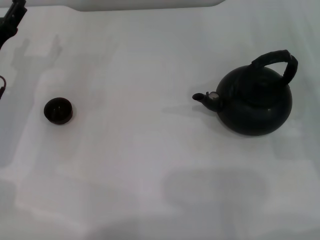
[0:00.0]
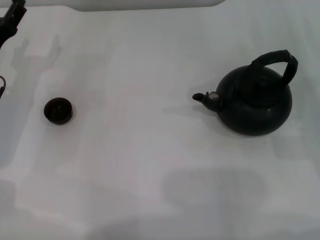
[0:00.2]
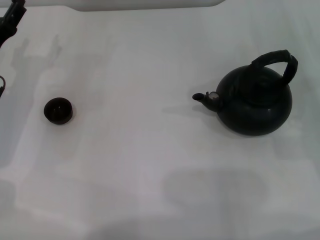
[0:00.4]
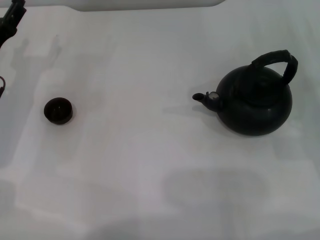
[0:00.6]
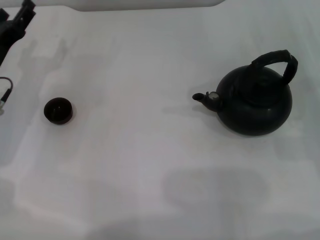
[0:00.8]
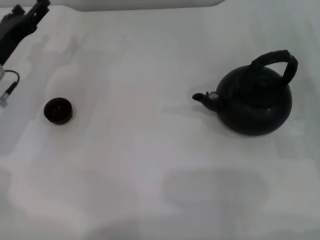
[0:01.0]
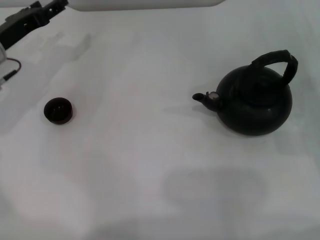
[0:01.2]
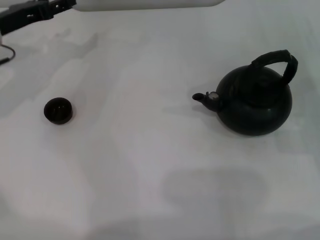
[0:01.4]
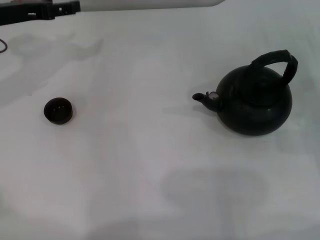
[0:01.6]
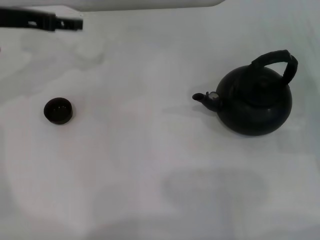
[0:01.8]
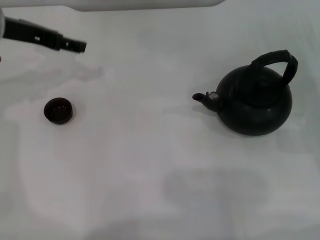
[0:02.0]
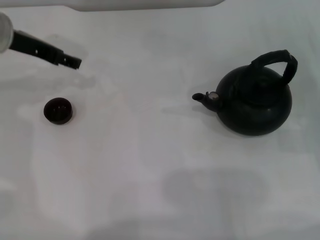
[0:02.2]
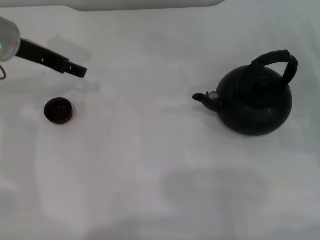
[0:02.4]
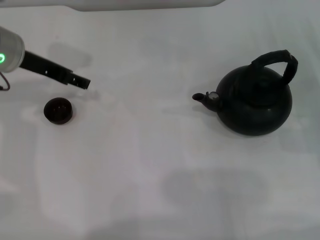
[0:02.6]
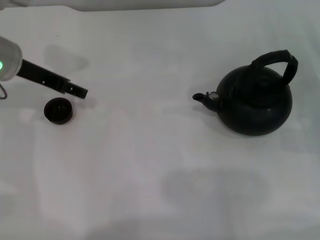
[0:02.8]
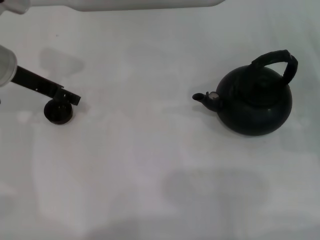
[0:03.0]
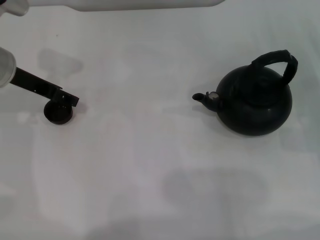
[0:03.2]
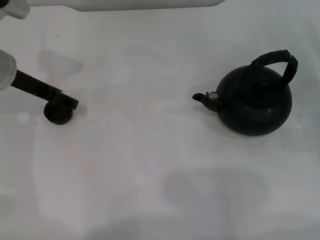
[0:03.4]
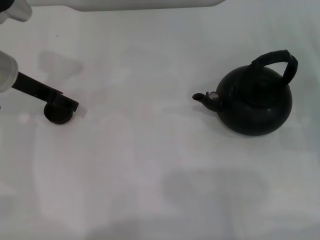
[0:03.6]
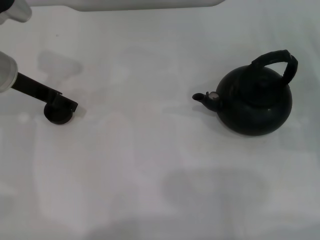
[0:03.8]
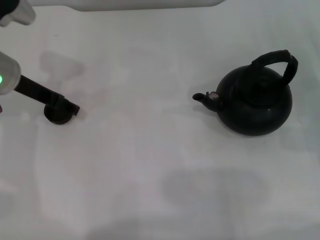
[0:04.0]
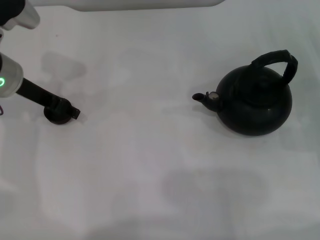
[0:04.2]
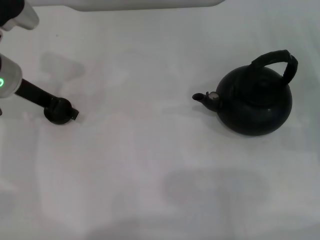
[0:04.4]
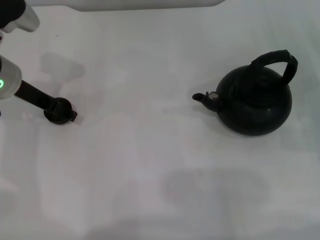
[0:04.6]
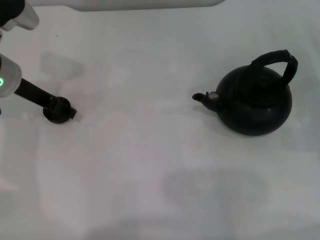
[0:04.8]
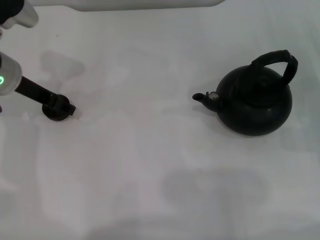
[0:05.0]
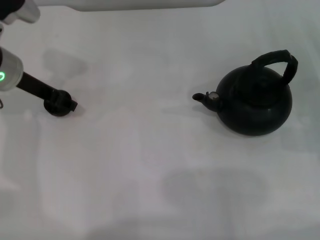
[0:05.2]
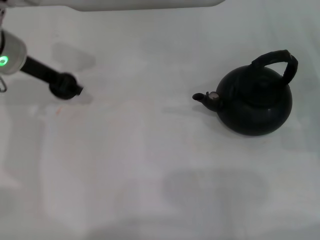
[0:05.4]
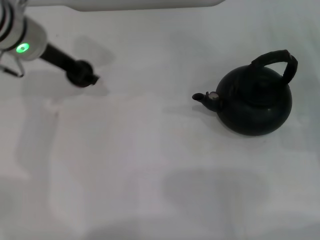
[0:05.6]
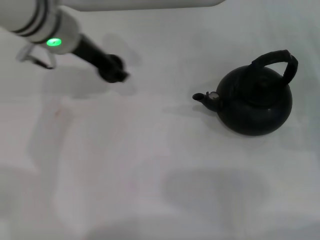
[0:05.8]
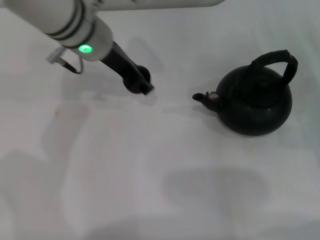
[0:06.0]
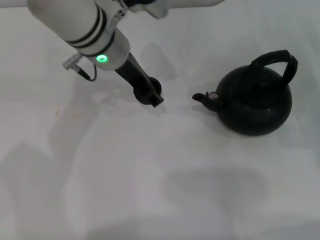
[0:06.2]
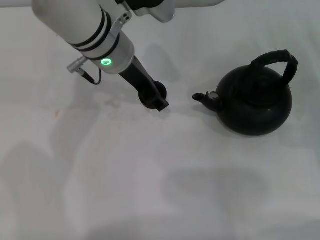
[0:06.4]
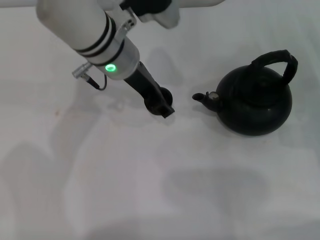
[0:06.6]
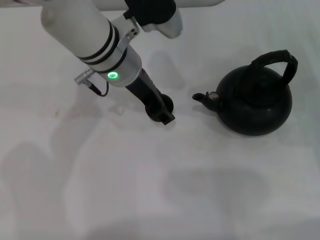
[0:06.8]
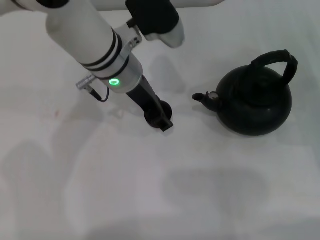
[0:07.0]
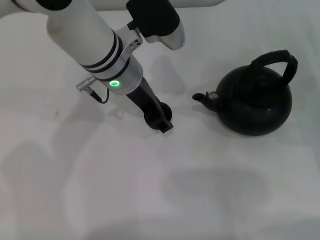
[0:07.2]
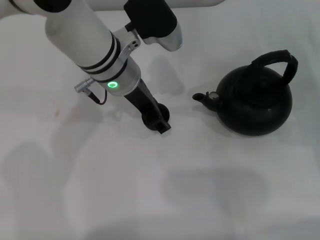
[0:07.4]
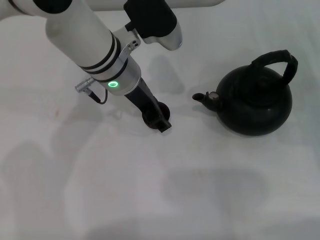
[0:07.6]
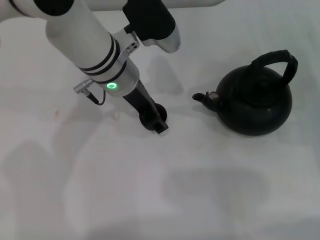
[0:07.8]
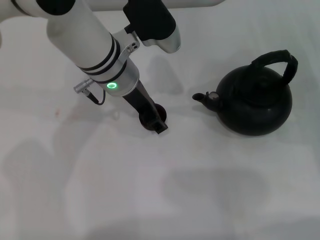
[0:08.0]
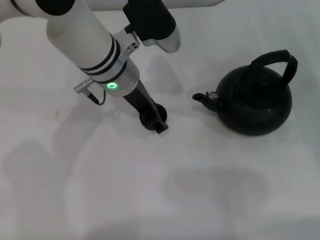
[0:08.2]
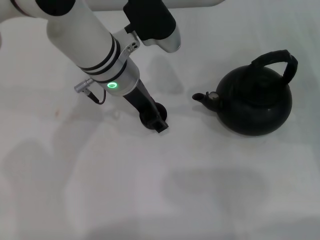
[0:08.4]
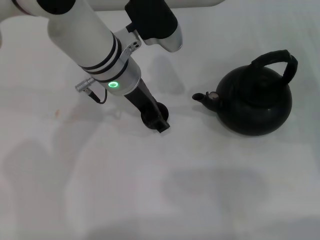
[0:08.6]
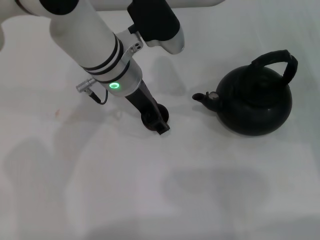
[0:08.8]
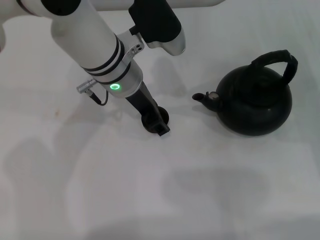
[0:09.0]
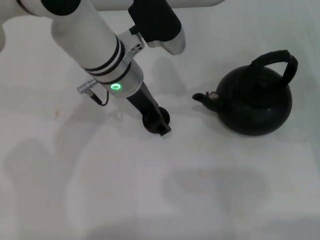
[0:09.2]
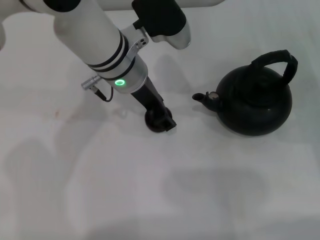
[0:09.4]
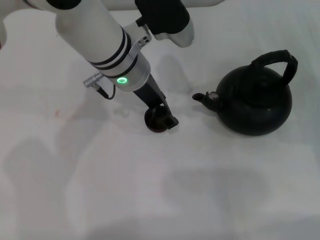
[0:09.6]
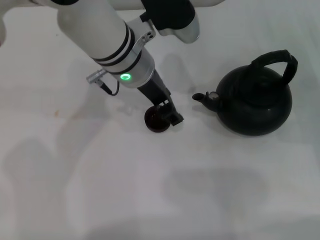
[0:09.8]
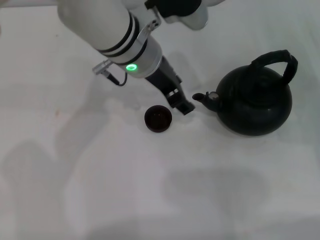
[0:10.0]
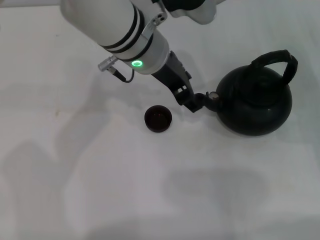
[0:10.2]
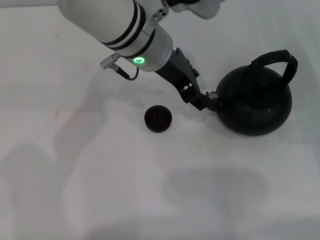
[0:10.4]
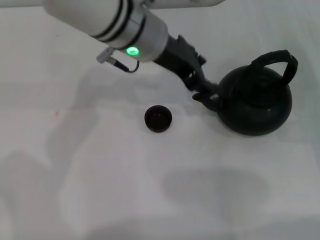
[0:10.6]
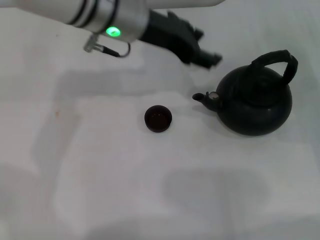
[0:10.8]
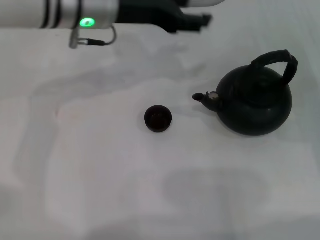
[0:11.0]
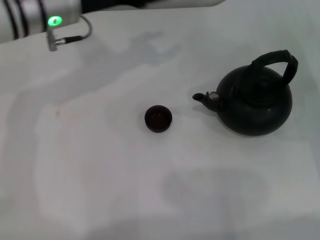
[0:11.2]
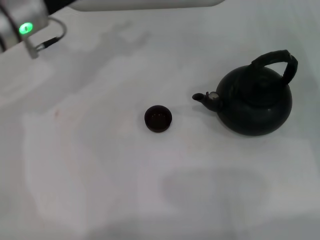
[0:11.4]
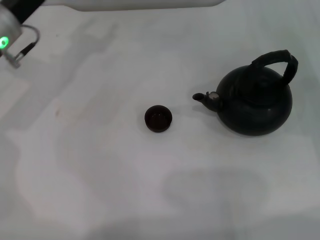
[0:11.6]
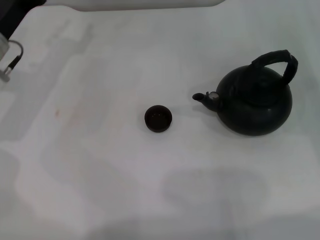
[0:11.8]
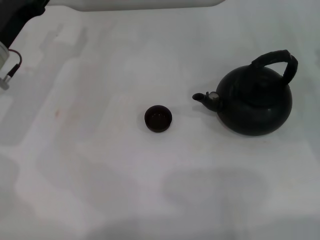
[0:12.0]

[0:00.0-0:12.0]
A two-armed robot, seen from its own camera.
Task of the whole recording: Grasp the handle of the teapot with one hand and pour tea into the teacup.
Step, 0:00.0 to 0:05.2: Pick up the teacup with the left gripper.
Step, 0:05.4 to 0:10.0: Place the teacup in the center of view with the left gripper.
0:00.0 to 0:01.6: The left gripper is displaced upward and forward by roughly 15 cm.
0:01.6 to 0:03.0: The left gripper moves roughly 5 cm.
0:03.0 to 0:04.4: The grippers move only a little.
0:04.4 to 0:06.0: The left gripper travels to the right by approximately 15 cm, and closes its fingers.
0:06.0 to 0:07.6: The left gripper moves some 5 cm.
0:07.6 to 0:09.0: Both grippers stay put.
0:09.0 to 0:10.4: The left gripper is displaced upward by some 5 cm.
0:10.4 to 0:12.0: The left gripper moves to the left and downward, roughly 25 cm.

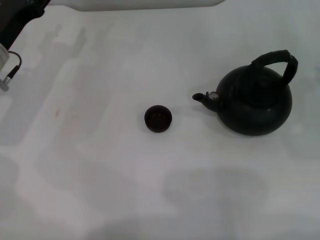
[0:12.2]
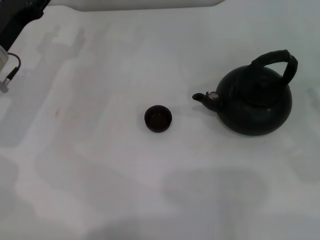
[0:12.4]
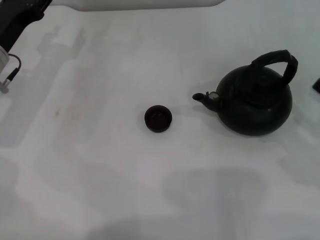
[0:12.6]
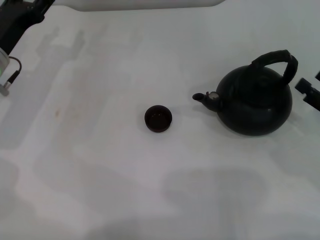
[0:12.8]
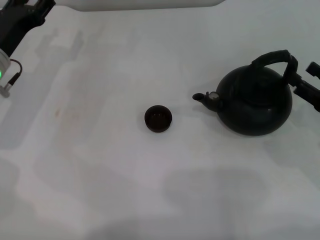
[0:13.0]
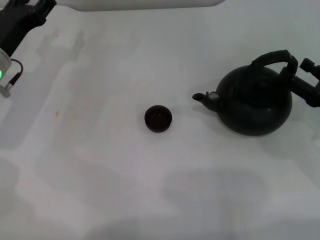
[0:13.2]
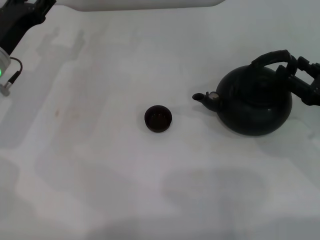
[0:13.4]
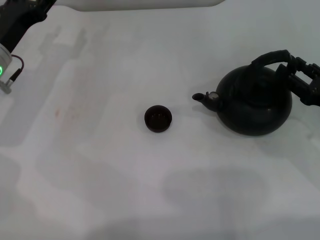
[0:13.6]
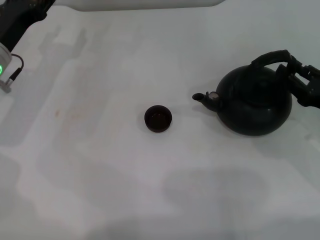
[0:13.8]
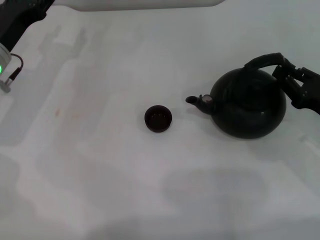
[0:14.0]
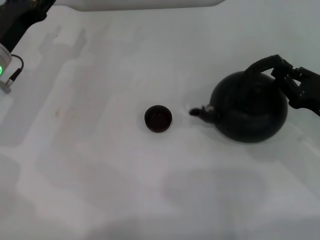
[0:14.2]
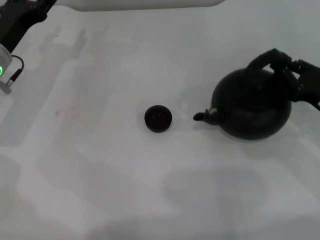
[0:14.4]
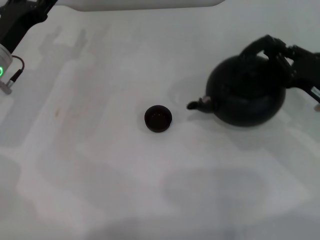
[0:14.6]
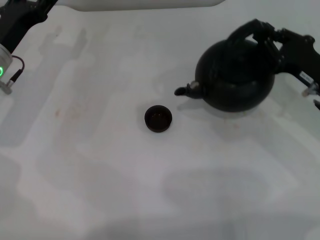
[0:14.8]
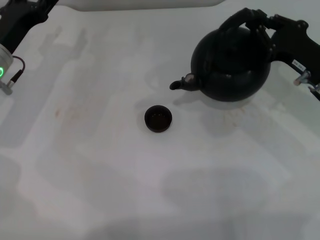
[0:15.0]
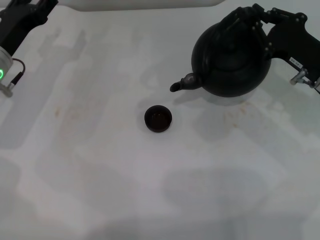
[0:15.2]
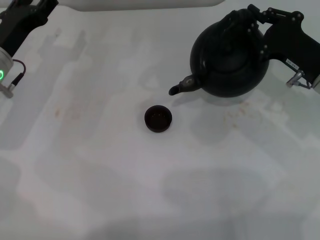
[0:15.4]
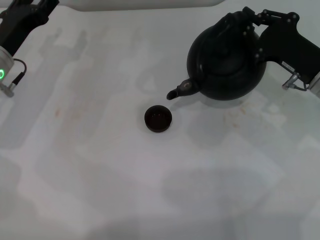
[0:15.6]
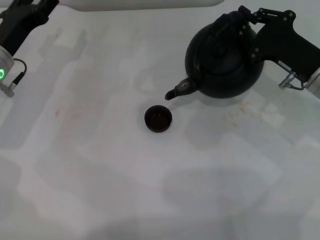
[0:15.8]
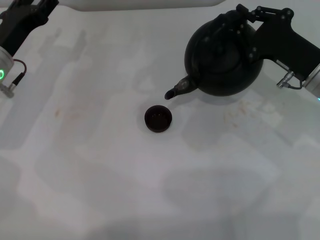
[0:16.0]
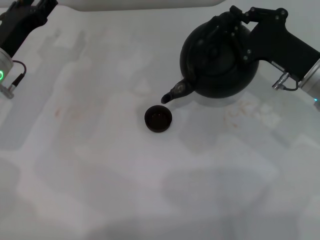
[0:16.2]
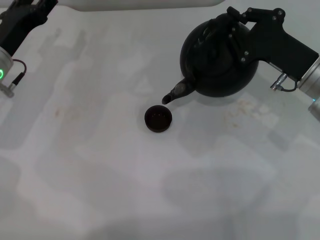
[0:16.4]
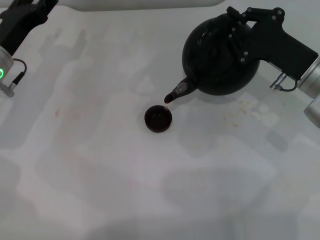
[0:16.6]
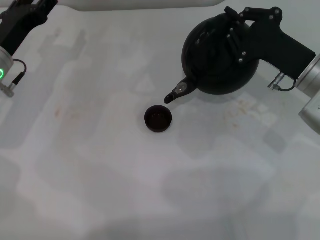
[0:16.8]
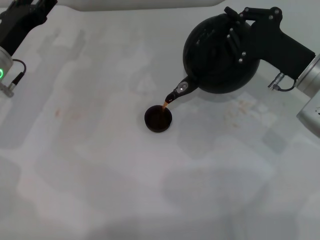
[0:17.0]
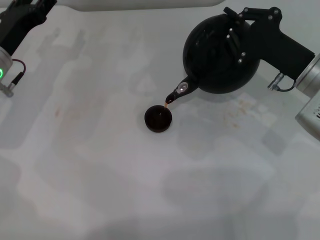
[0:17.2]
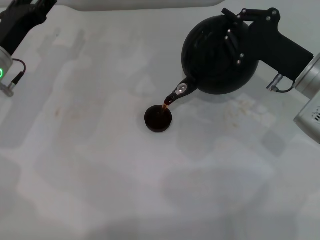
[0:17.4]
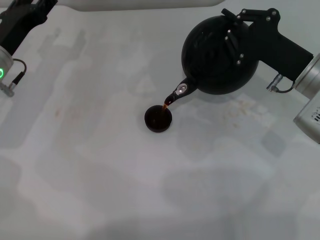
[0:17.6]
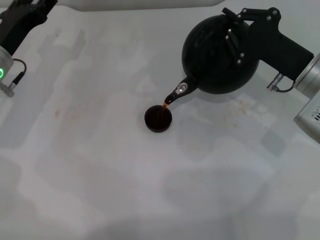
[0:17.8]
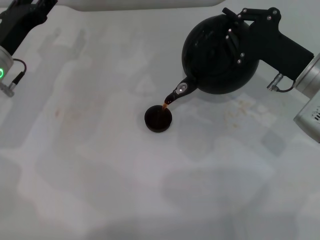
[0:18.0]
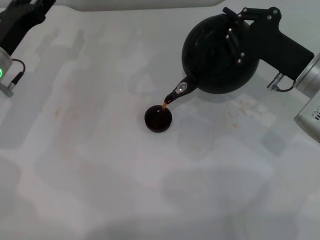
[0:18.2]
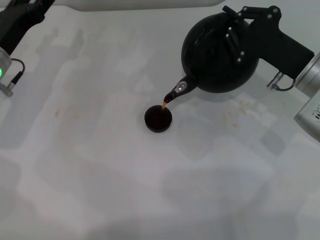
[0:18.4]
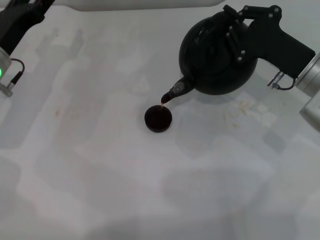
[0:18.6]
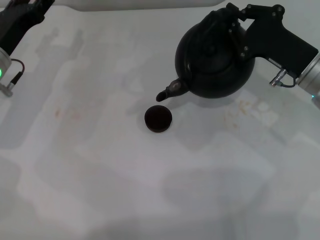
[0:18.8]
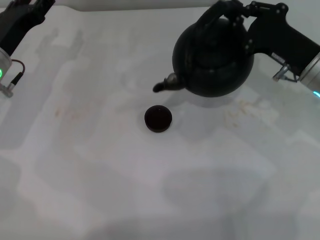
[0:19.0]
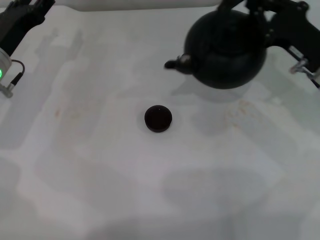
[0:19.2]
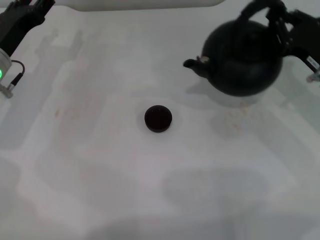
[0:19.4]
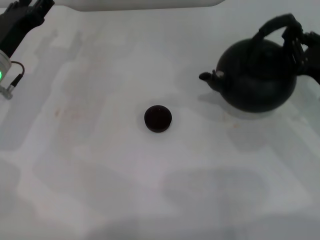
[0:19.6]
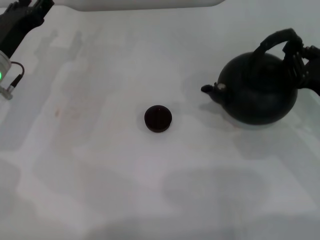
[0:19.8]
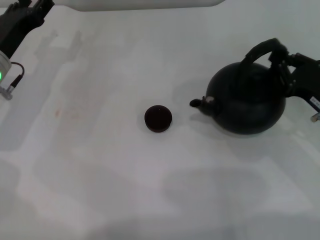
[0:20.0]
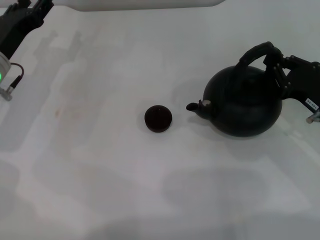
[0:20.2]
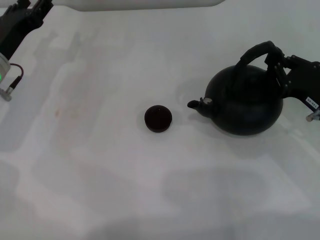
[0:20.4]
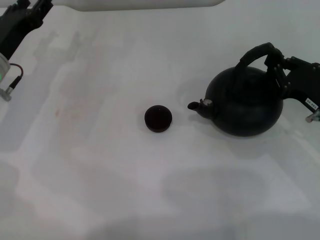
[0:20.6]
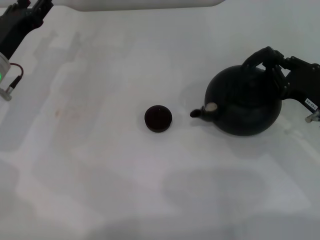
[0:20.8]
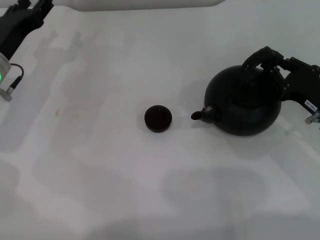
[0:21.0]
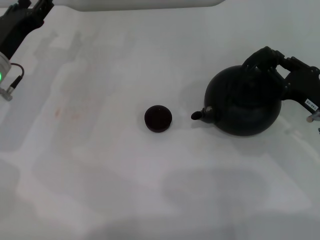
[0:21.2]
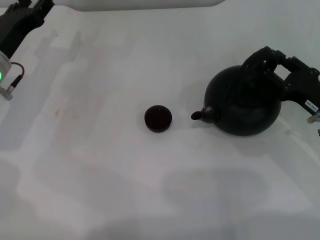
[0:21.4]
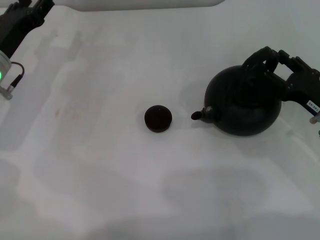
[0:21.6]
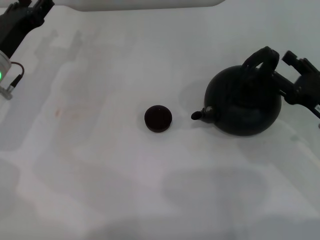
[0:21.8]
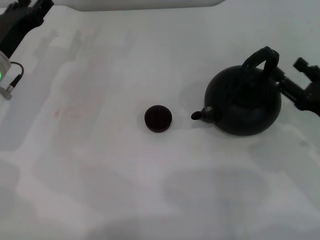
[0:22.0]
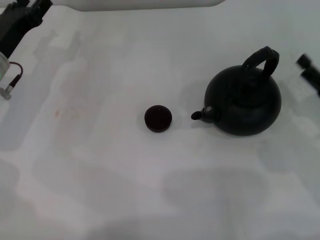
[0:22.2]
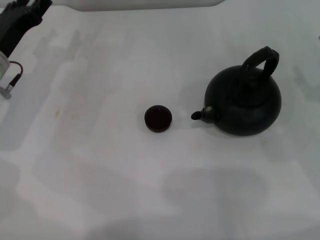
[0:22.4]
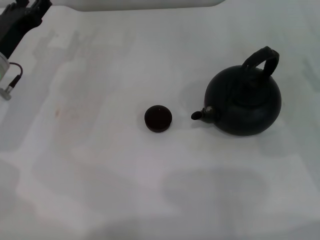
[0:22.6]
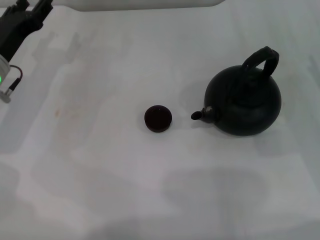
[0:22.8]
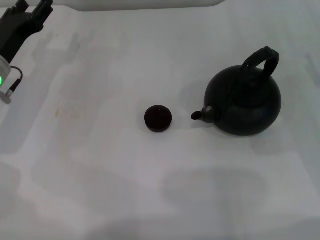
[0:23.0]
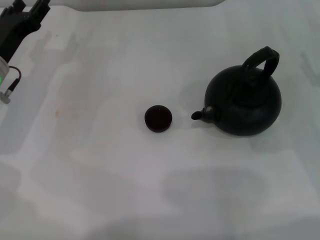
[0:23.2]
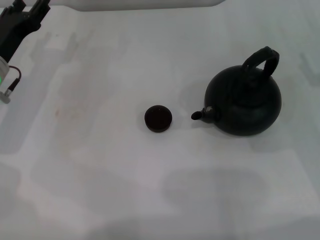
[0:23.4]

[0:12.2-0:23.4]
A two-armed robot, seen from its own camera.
Task of the whole recording: Grasp the handle of the teapot with one hand and pour tea into the teacup.
Step, 0:12.2 to 0:14.8: Pick up the teapot with the right gripper.
Step, 0:15.0 to 0:18.8: Pour tea into the teacup with the right gripper.
Step, 0:19.0 to 0:22.0: Put down the teapot with the right gripper.
0:12.2 to 0:13.8: The right gripper is displaced to the left by some 5 cm, and closes its fingers.
0:13.8 to 0:15.4: The right gripper is displaced forward and to the left by some 10 cm, and closes its fingers.
0:17.0 to 0:18.6: Neither gripper changes place.
0:18.6 to 0:20.2: The right gripper moves backward and to the right, approximately 10 cm.
0:20.2 to 0:21.8: The right gripper opens its fingers.
0:21.8 to 0:23.4: The right gripper changes place by about 5 cm.
